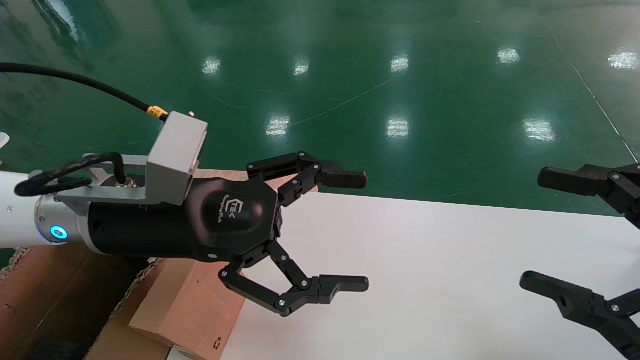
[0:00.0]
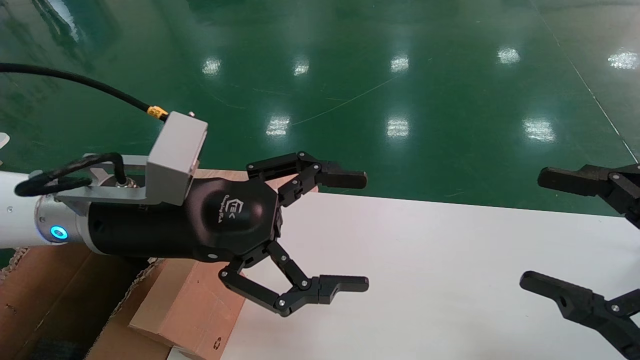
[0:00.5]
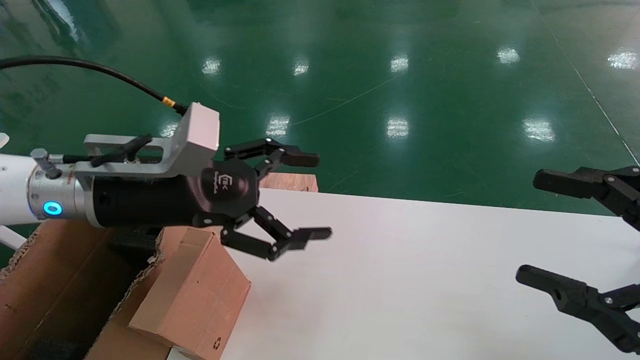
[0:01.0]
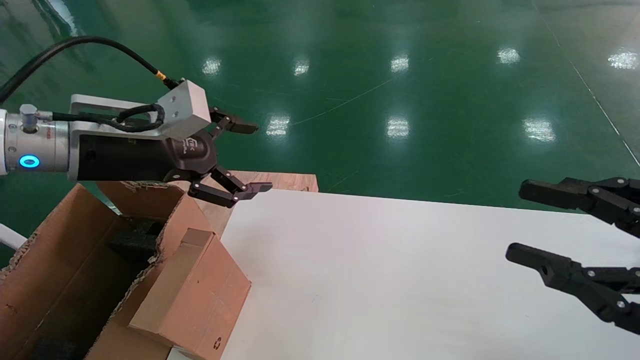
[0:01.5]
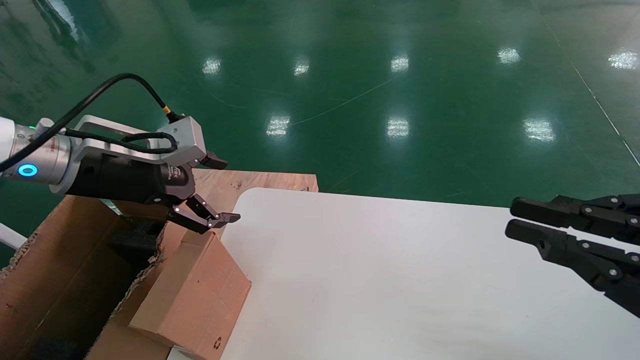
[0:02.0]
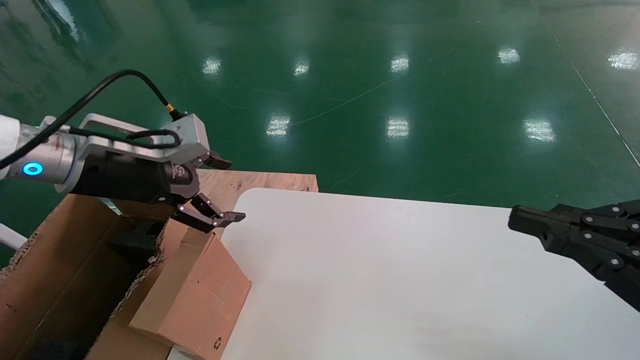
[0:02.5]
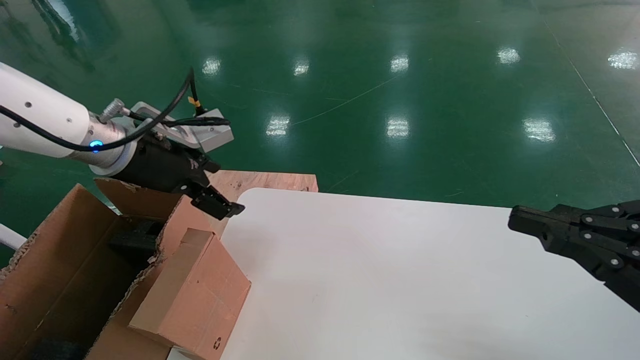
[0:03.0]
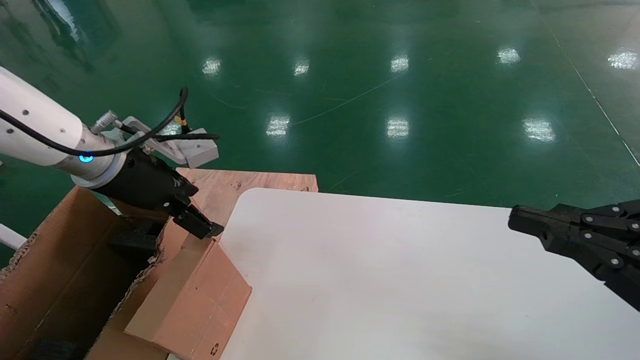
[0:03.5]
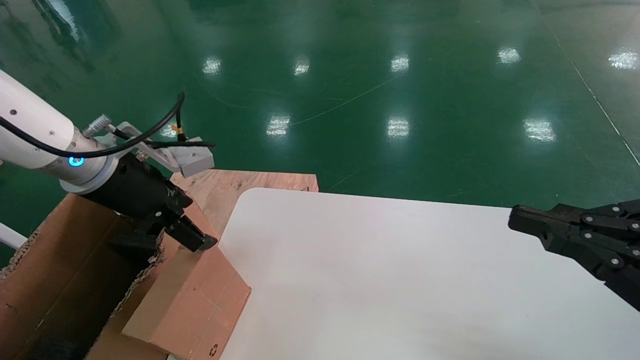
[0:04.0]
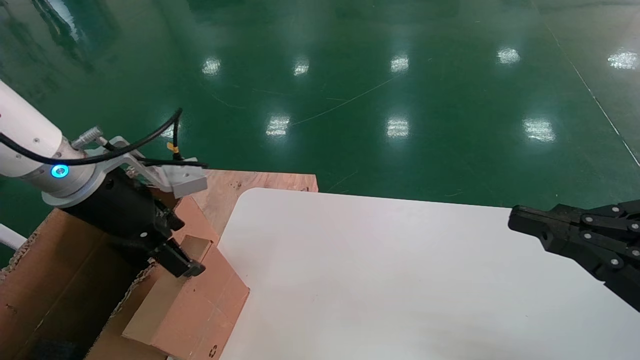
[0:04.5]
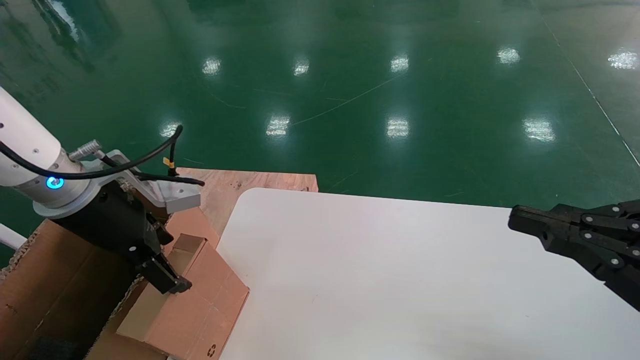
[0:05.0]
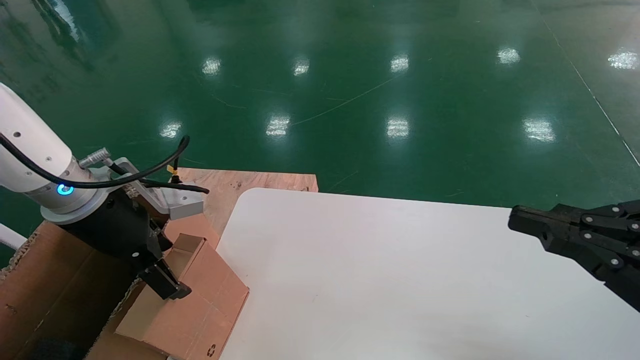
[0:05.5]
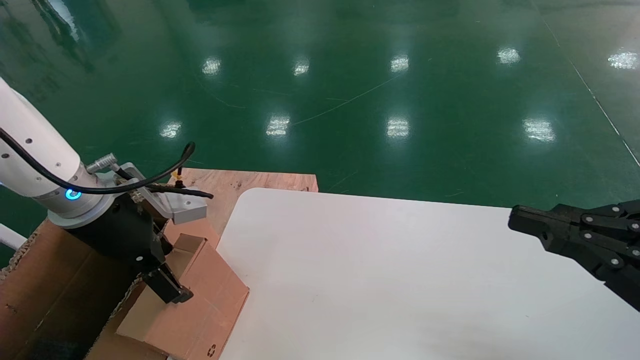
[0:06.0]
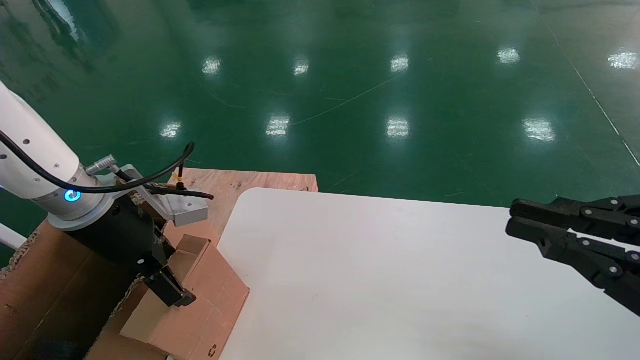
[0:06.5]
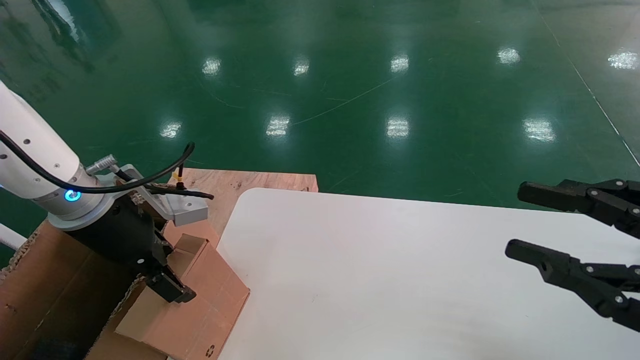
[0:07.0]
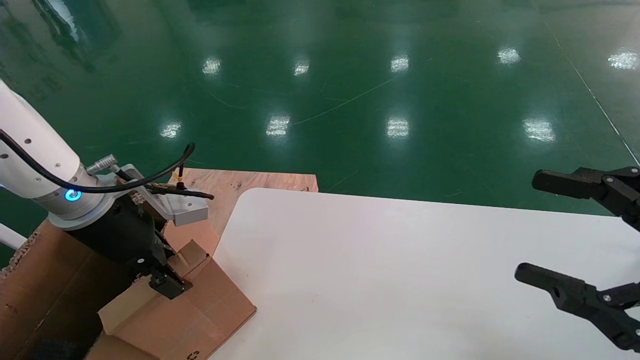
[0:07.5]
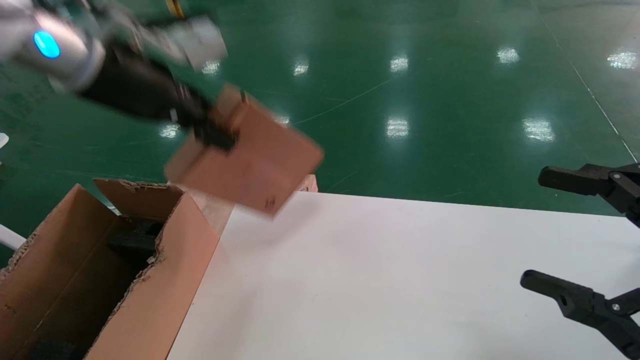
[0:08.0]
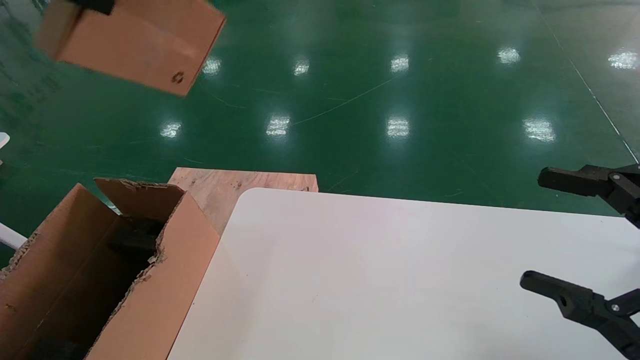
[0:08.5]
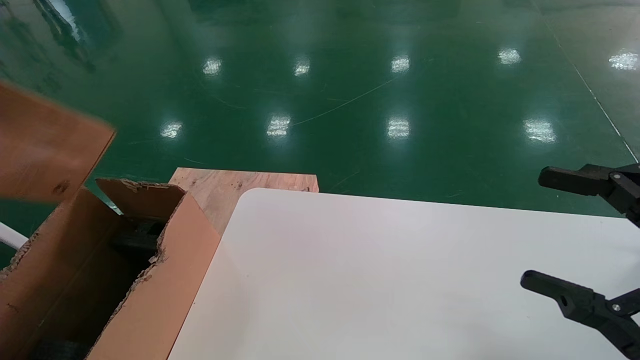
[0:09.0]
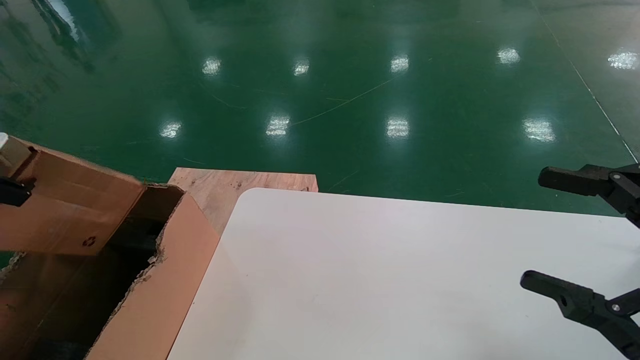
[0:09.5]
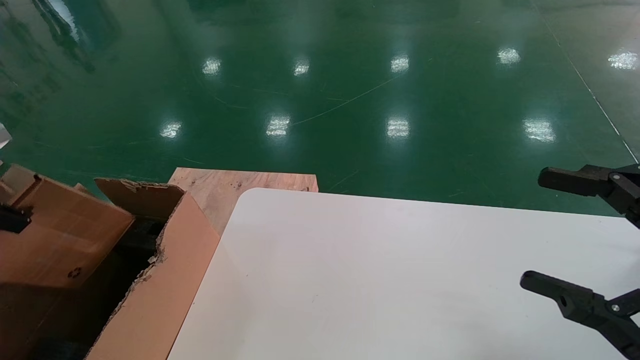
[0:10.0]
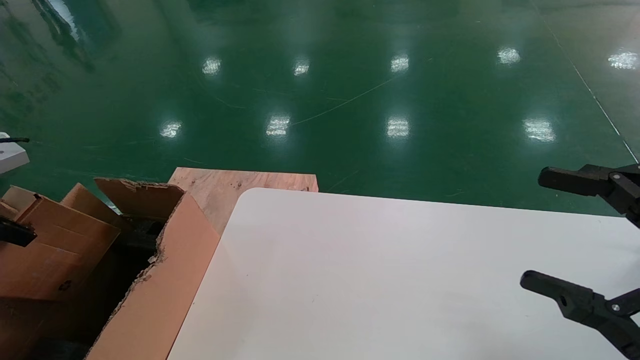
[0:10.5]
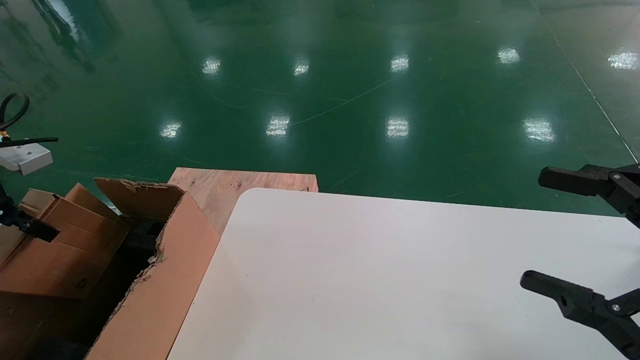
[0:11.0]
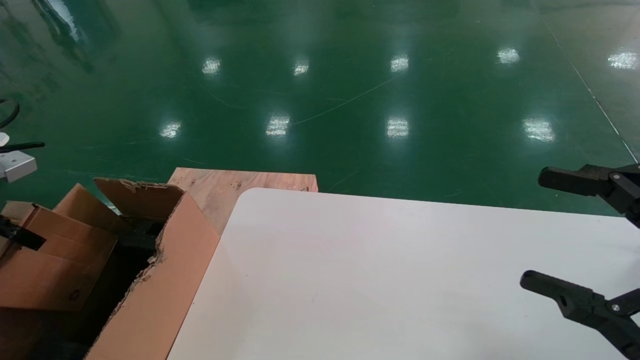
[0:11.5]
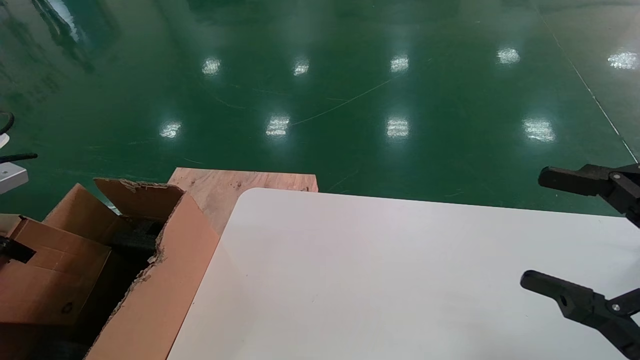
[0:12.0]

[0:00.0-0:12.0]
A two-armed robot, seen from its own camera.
Task of the whole recording: place the small box on the table into the large box on the left.
Step, 0:01.0 to 0:07.0: Pick up the mouse and the power cord paper box.
0:00.0 to 0:02.0: The right gripper closes its fingers. The left gripper heads to the left, covering roughly 10 cm.
0:04.0 to 0:06.0: There are only small adjustments of the grippers.
0:06.0 to 0:08.0: The right gripper opens up; the left gripper moves upward, some 15 cm, and closes its fingers.
0:08.0 to 0:10.0: The left gripper goes approximately 25 cm to the left and backward.
0:10.0 to 0:12.0: The left gripper goes roughly 10 cm downward, to the left and forward.

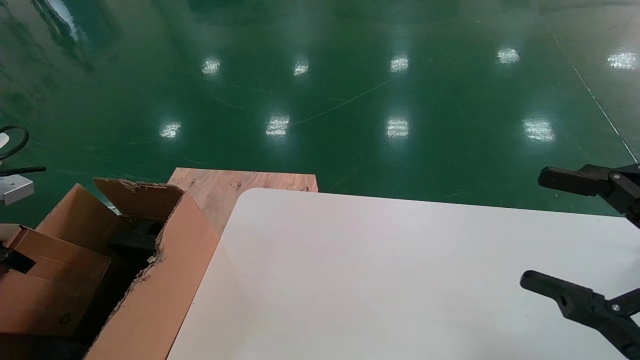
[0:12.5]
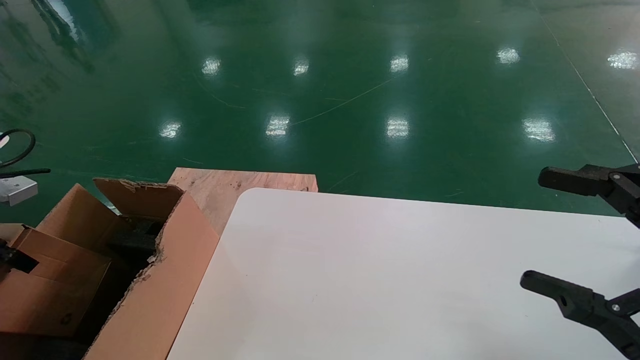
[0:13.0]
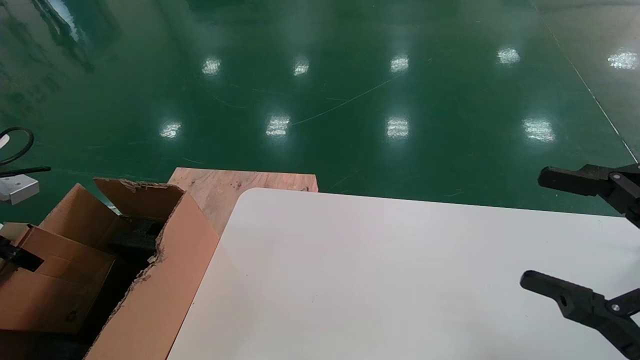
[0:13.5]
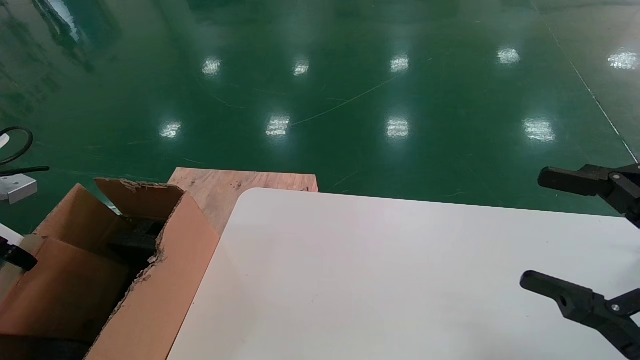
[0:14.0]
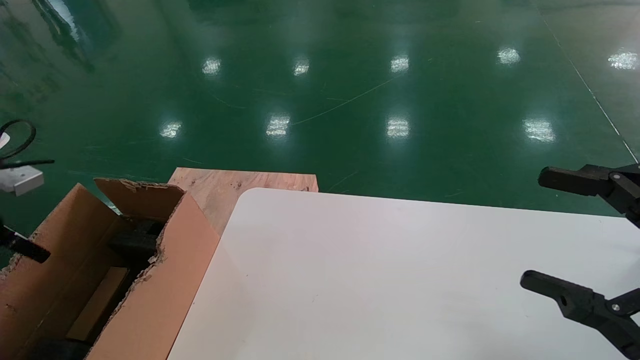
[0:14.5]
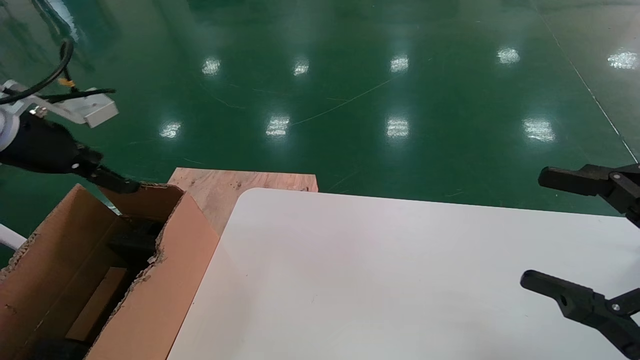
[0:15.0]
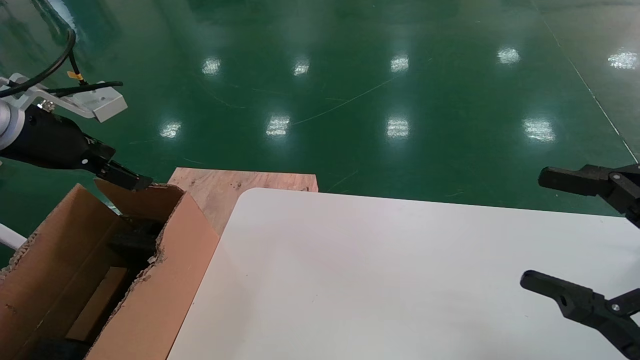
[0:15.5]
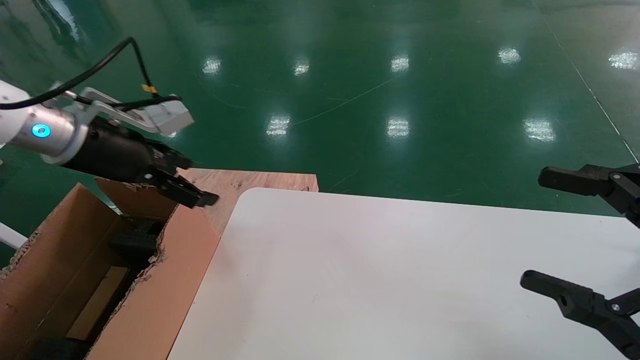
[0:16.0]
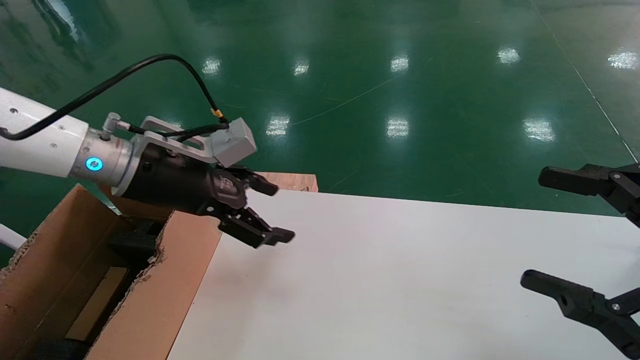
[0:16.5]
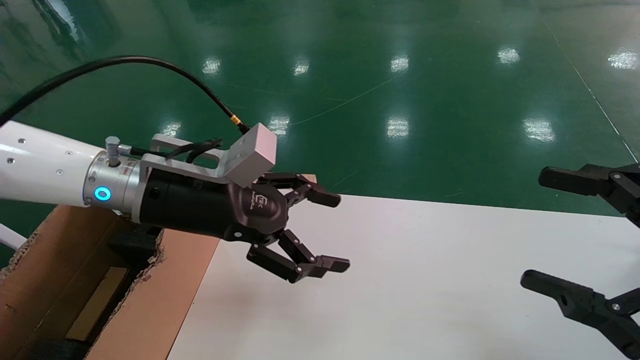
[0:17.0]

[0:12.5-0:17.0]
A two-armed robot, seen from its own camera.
Task of the whole recording: place the small box on the table into the large box on the left.
0:12.5 to 0:14.5: The left gripper opens up.
0:14.5 to 0:17.0: The left gripper travels to the right by some 30 cm.
